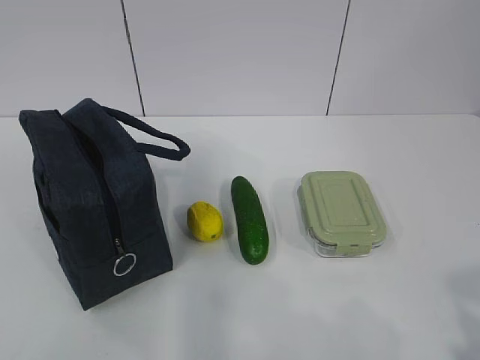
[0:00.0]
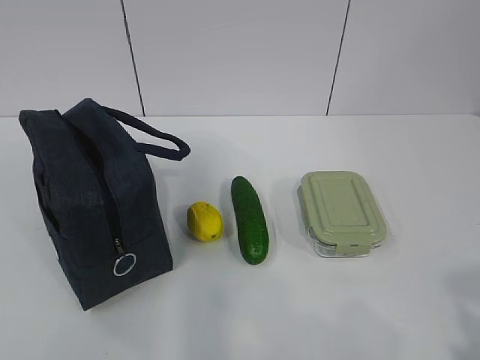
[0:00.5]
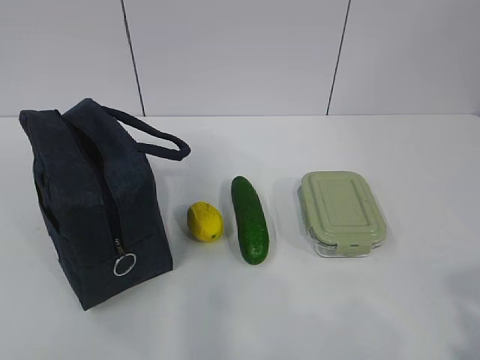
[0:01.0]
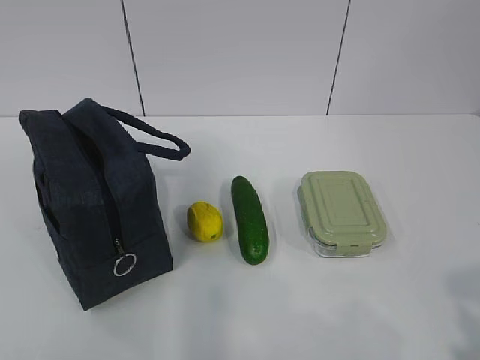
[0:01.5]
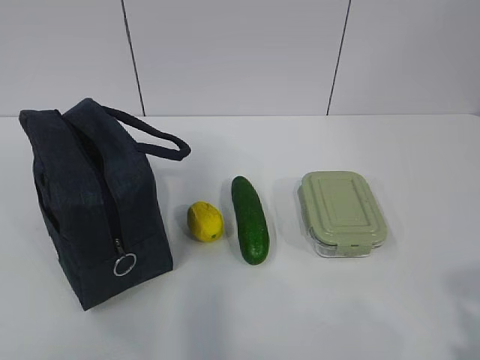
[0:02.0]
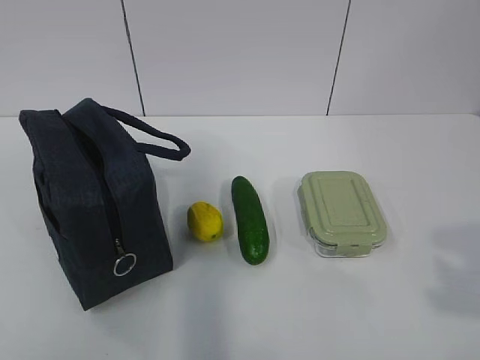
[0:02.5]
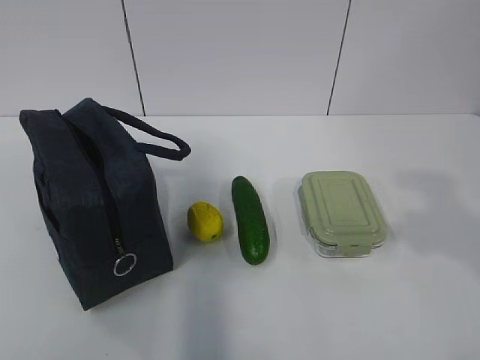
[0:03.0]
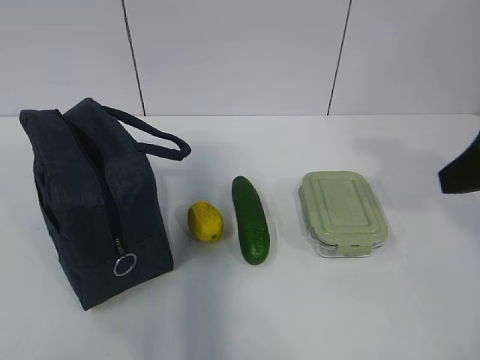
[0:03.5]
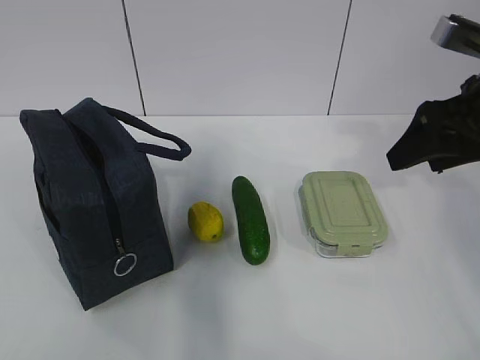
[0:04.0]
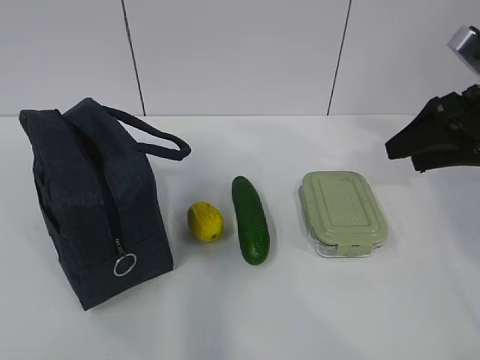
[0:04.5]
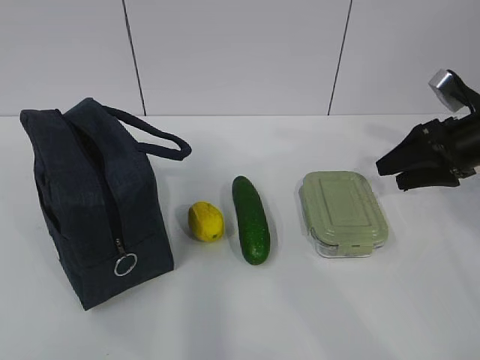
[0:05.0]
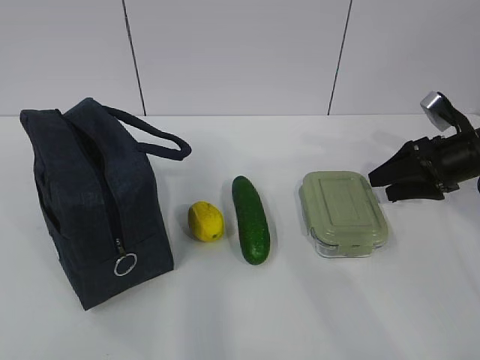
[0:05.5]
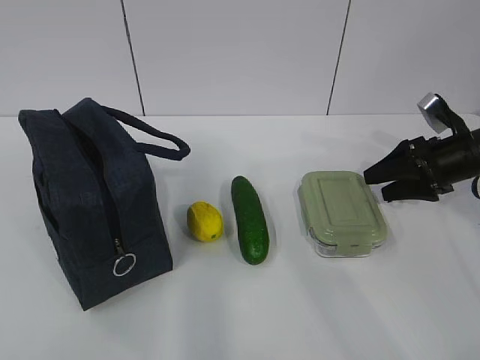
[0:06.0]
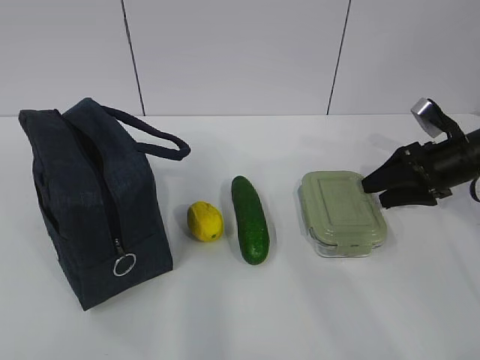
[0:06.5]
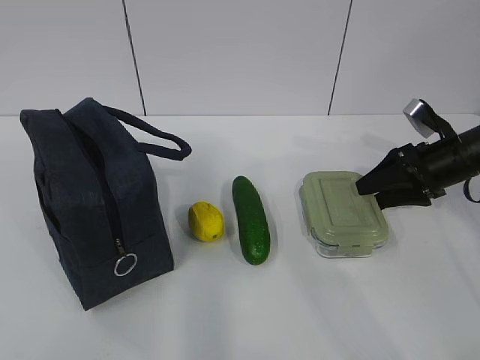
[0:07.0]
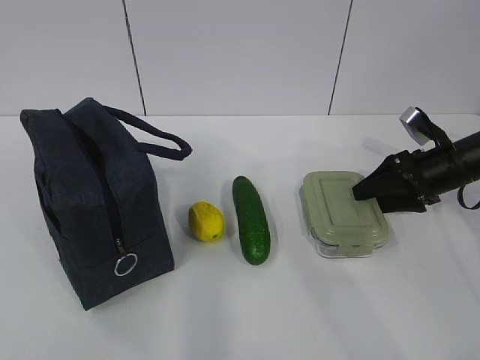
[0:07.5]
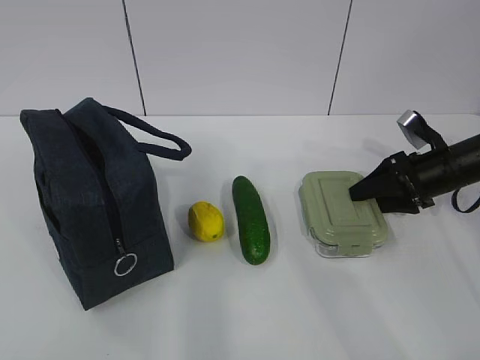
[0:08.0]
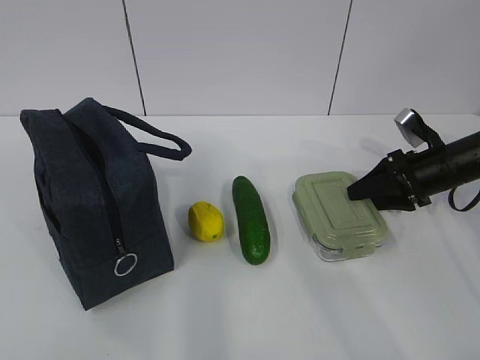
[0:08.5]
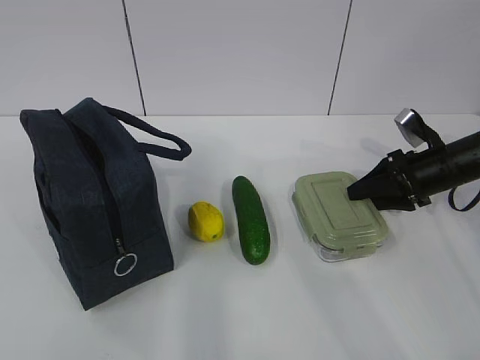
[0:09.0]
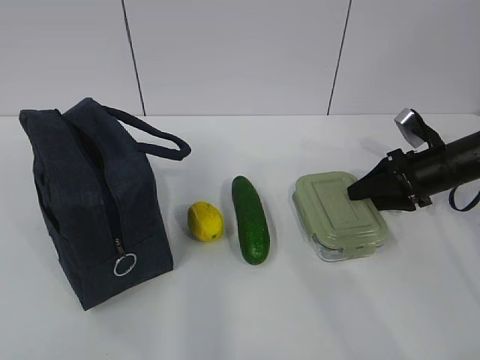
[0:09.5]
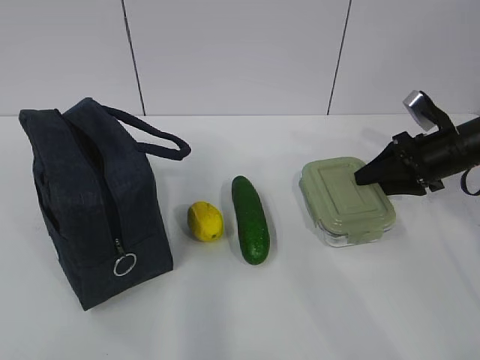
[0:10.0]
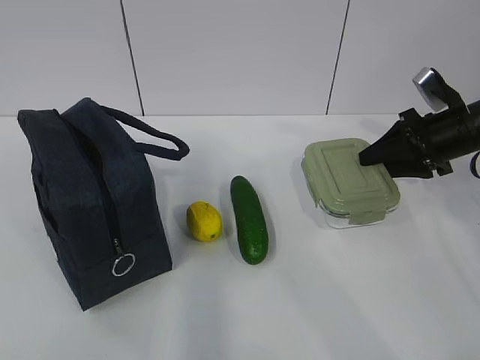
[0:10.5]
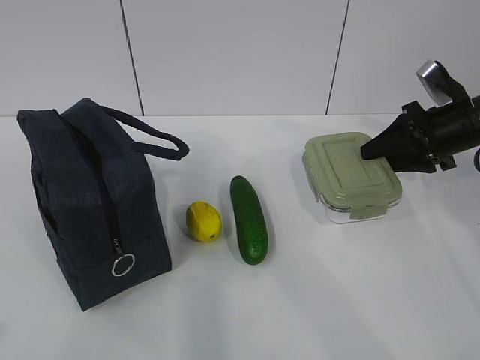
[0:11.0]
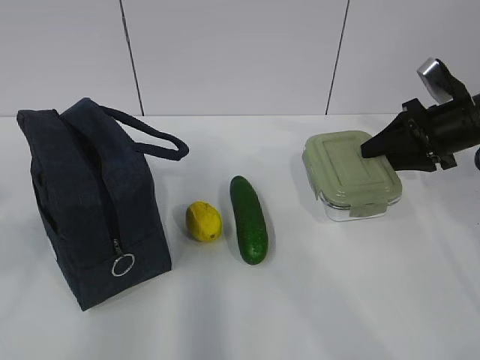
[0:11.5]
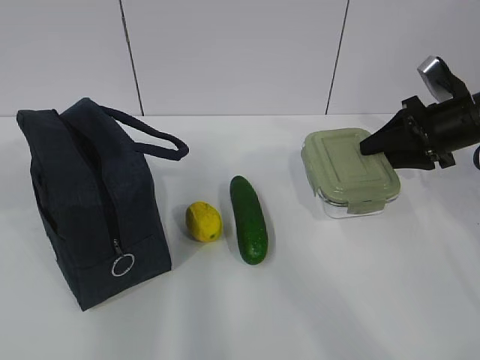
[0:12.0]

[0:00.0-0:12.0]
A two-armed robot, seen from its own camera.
Step, 0:00.0 to 0:07.5: Grab the lunch box with your right hand.
0:02.0 to 0:04.0: The right gripper goes some 30 cm forward.
0:04.0 to 0:06.0: The right gripper heads downward, forward and to the right, covering some 20 cm.
0:06.0 to 0:10.0: The grippers make only small movements.
0:10.0 to 0:12.0: The left gripper heads forward, covering approximately 20 cm, while the right gripper goes about 5 cm upward.

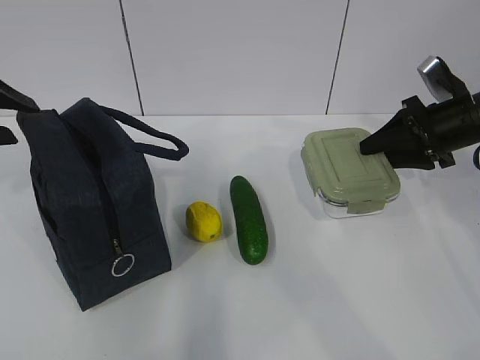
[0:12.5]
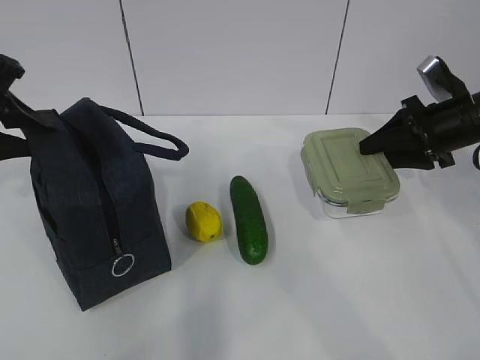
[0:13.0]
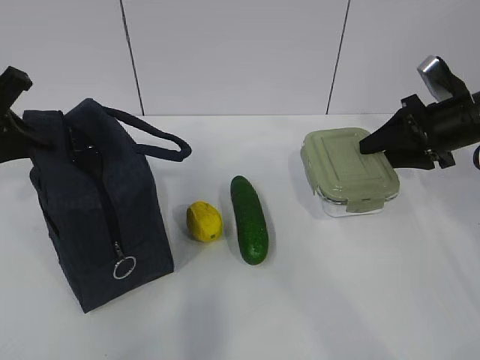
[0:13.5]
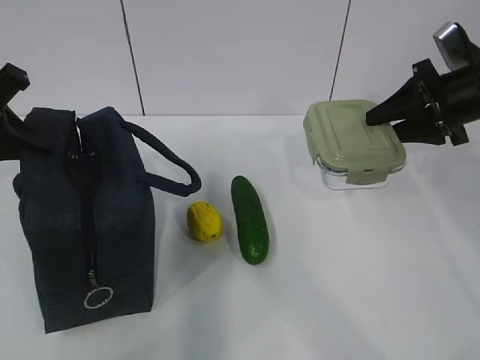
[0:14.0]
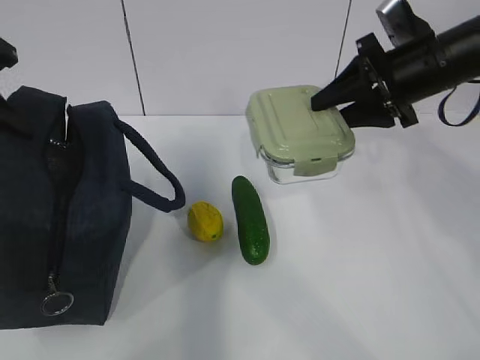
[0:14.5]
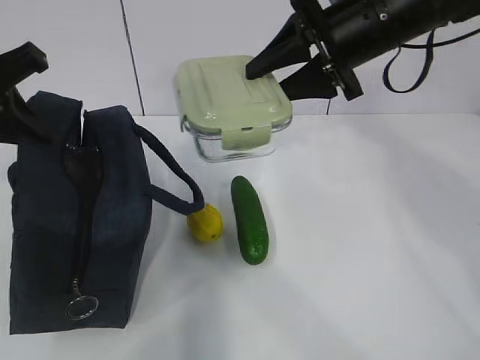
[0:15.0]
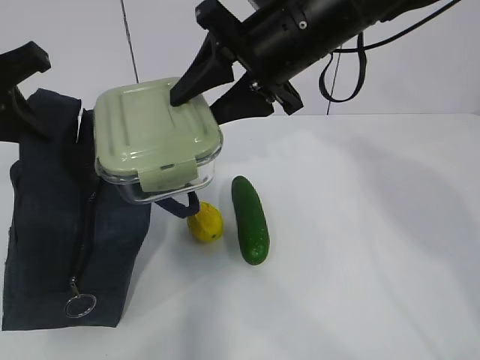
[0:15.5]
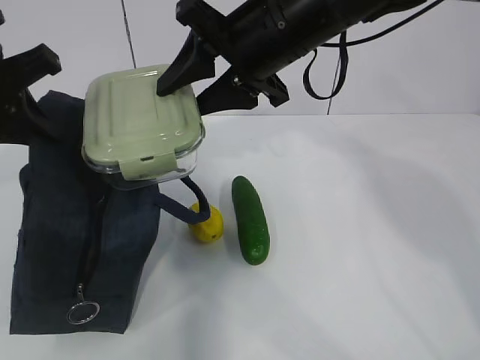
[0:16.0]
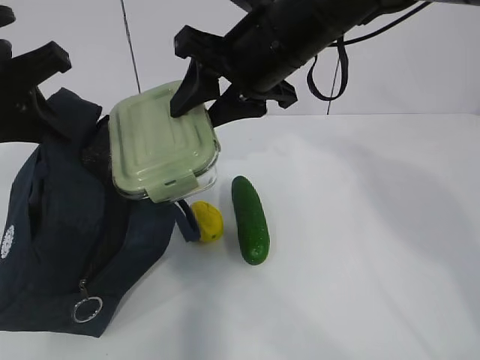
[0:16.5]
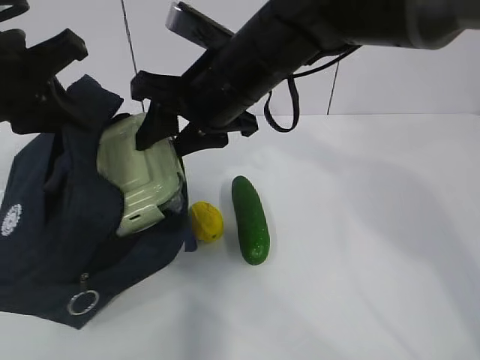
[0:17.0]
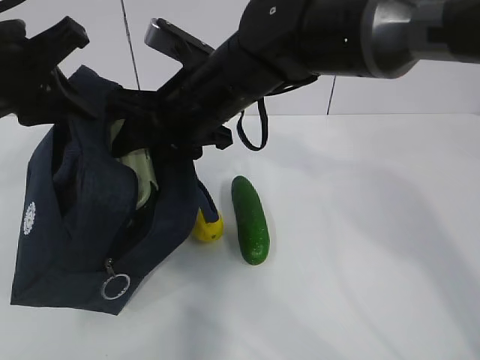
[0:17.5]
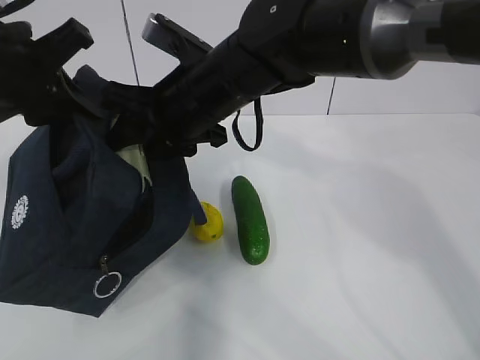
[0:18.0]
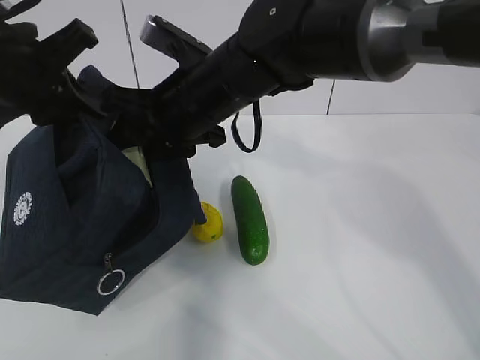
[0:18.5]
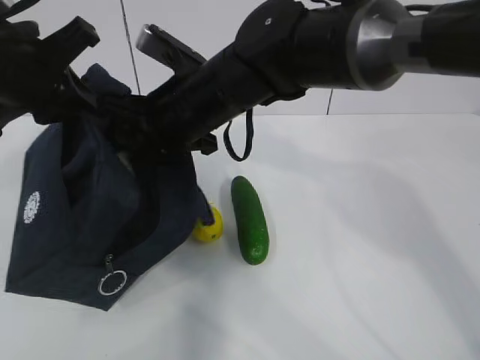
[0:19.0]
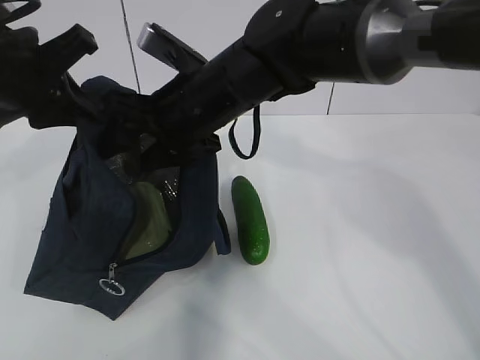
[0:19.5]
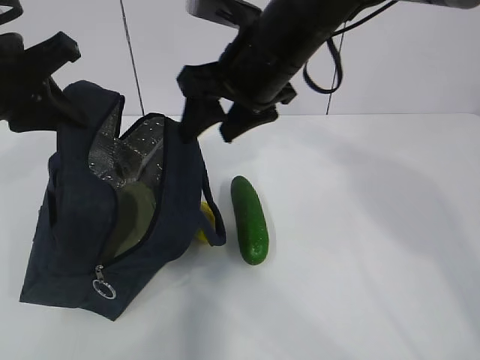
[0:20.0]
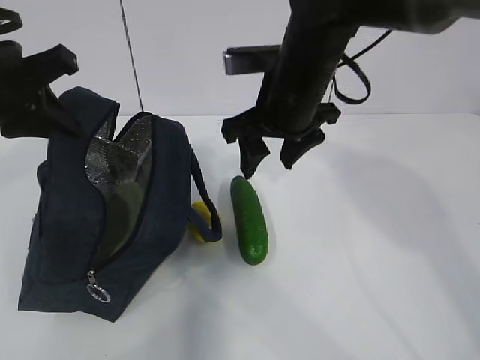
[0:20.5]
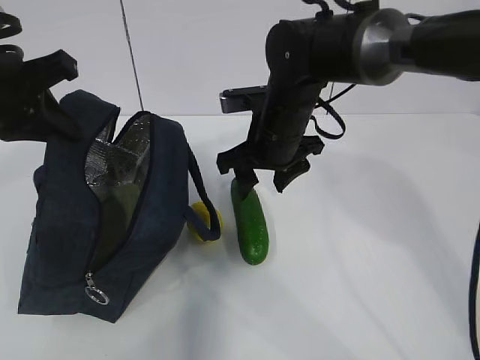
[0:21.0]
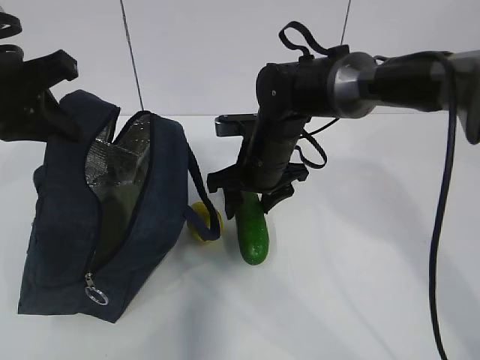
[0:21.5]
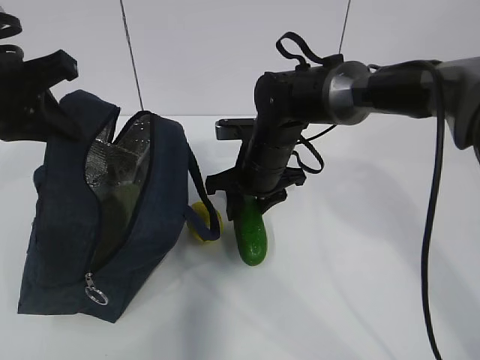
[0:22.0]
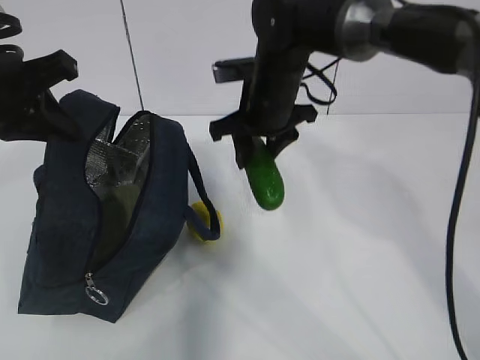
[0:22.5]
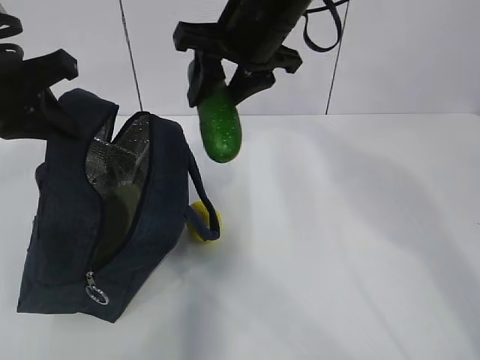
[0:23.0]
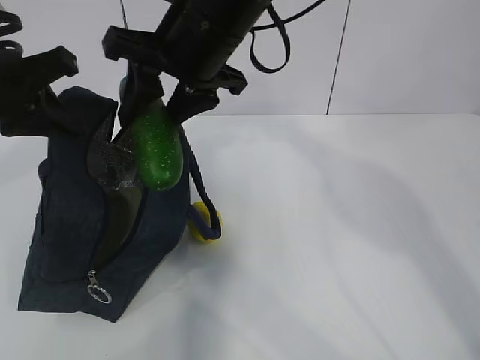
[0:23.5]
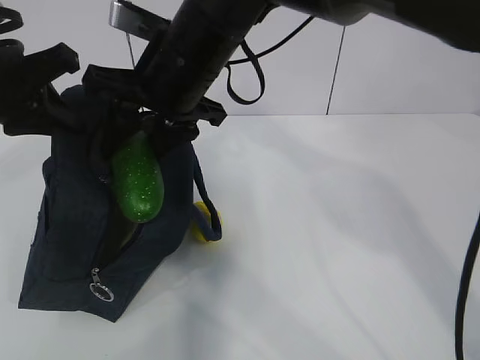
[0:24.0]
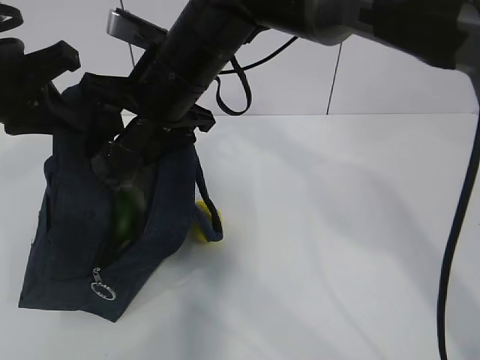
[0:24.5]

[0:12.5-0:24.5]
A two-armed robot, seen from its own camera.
Step, 0:13.5 to 0:16.0: Place it into the bag with your right hand.
Step, 0:16.5 to 0:18.0: Grab the cucumber with your right hand.
Step, 0:18.5 to 0:20.0: Place it into the bag with your right hand.
Step, 0:21.0 to 0:23.0: Grab the lemon with your right hand.
0:12.5 to 0:14.5: The right gripper shifts approximately 10 cm to the left and upward; the left gripper closes its fingers.
0:14.5 to 0:16.5: The left gripper ends up about 5 cm from where it was, while the right gripper heads to the left, covering approximately 15 cm.
0:16.5 to 0:18.5: The right gripper heads to the left and downward, covering about 10 cm.
0:18.5 to 0:20.5: The right gripper is displaced to the right by about 10 cm.
0:20.5 to 0:22.5: The right gripper is displaced downward by approximately 5 cm.
0:22.5 to 0:24.5: The right gripper is displaced to the left, upward and backward by roughly 15 cm.

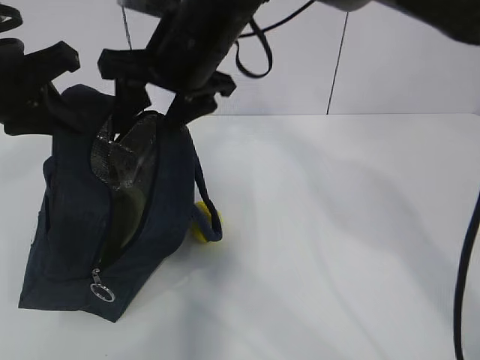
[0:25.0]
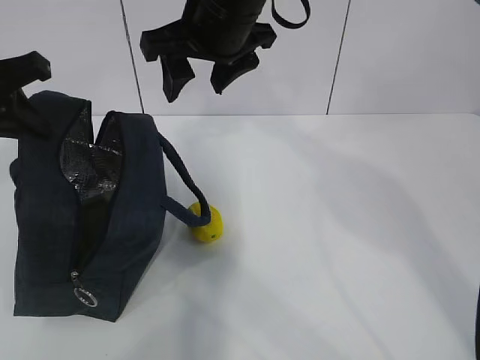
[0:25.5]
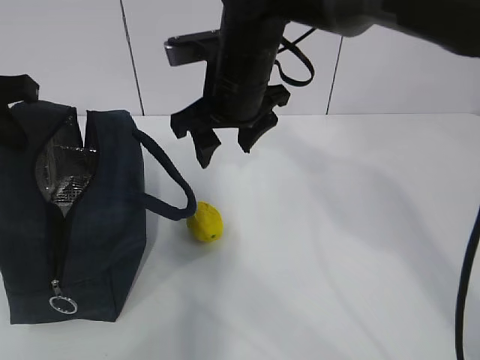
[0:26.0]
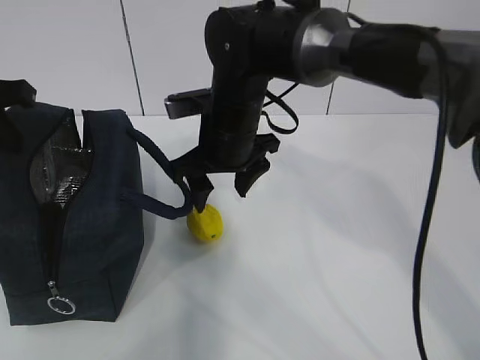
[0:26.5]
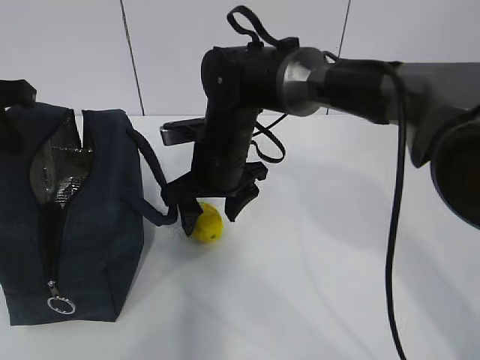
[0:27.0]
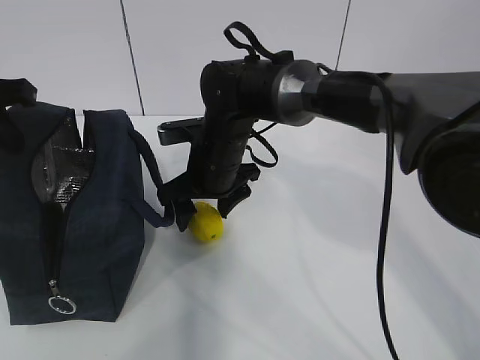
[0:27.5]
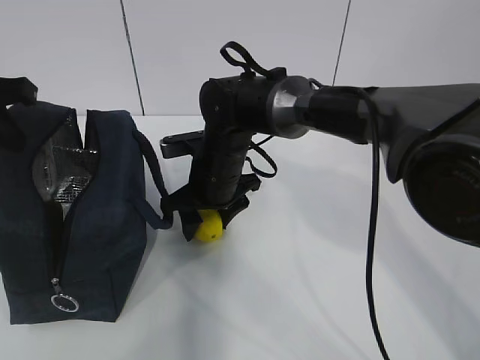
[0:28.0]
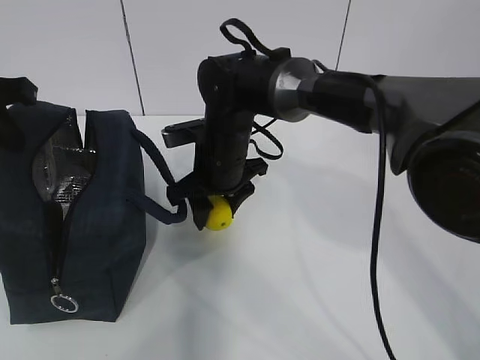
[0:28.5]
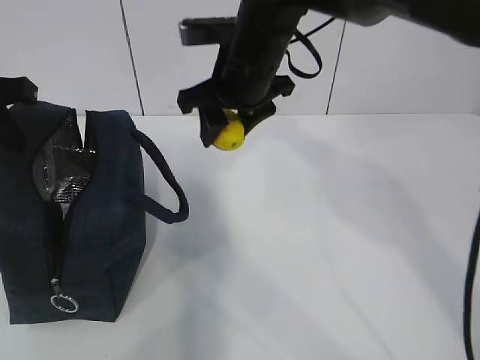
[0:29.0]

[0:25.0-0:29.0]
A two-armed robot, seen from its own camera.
Step, 0:26.0 to 0:26.5: Grab the lunch bag with your right hand.
Step, 0:27.0 to 0:28.5: Move the lunch bag to the right.
0:25.0 to 0:27.0: The right gripper is displaced downward by approximately 15 cm.
0:27.0 to 0:29.0: The right gripper moves upward, some 10 cm.
